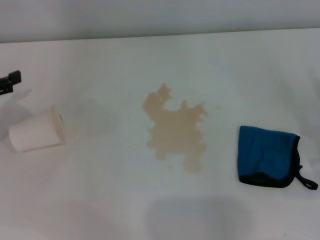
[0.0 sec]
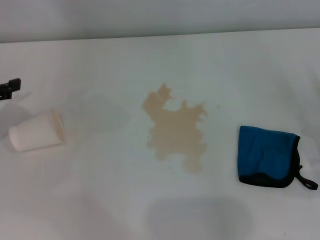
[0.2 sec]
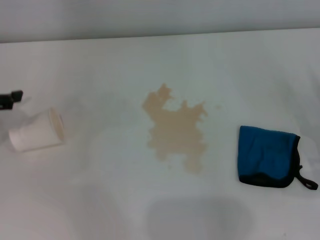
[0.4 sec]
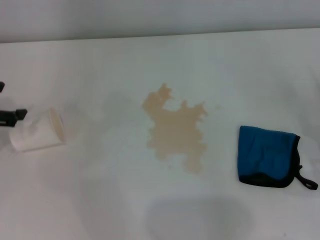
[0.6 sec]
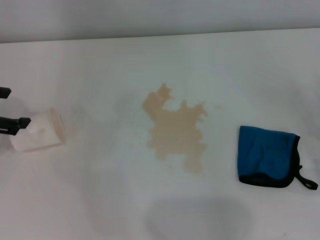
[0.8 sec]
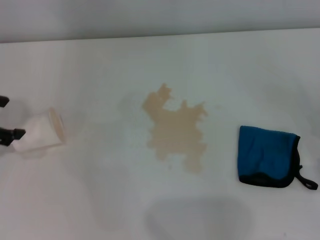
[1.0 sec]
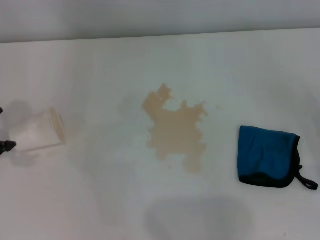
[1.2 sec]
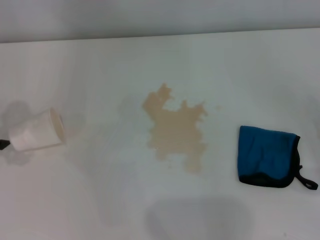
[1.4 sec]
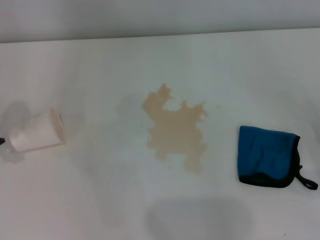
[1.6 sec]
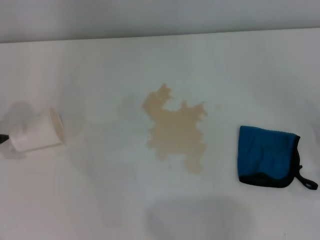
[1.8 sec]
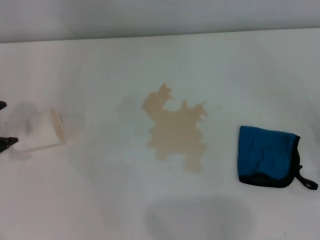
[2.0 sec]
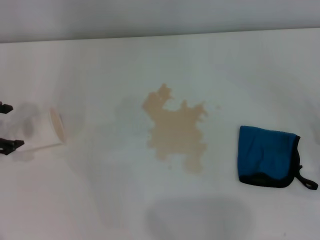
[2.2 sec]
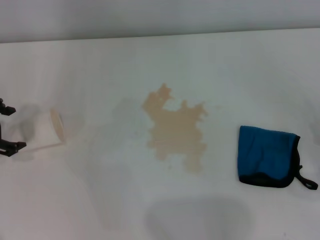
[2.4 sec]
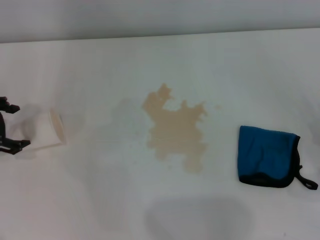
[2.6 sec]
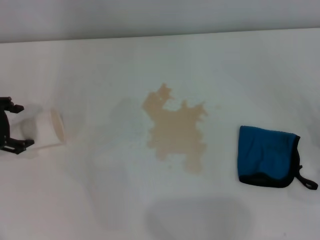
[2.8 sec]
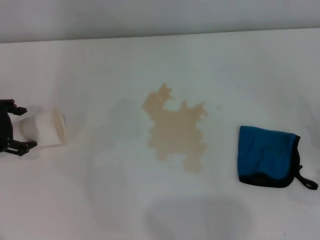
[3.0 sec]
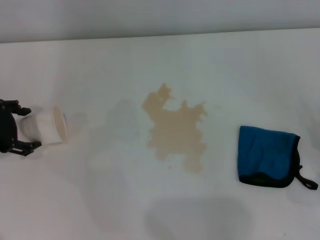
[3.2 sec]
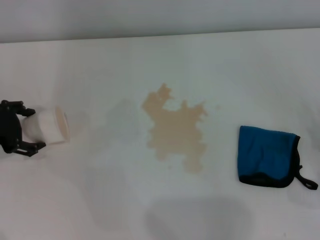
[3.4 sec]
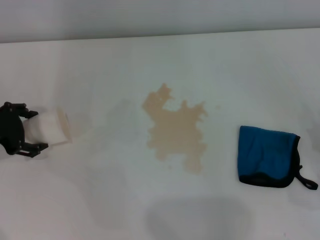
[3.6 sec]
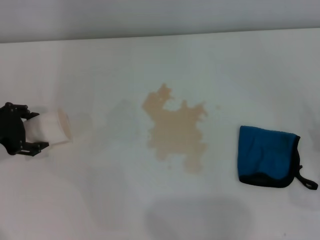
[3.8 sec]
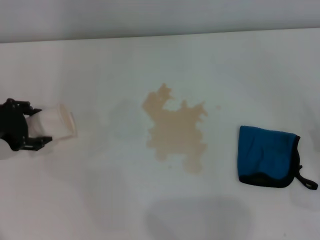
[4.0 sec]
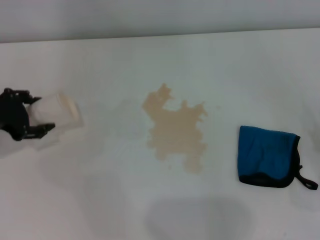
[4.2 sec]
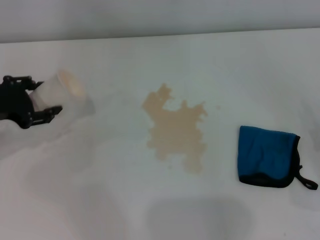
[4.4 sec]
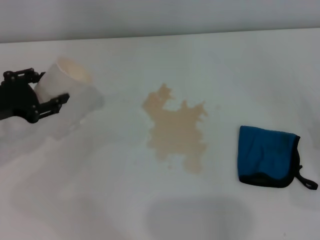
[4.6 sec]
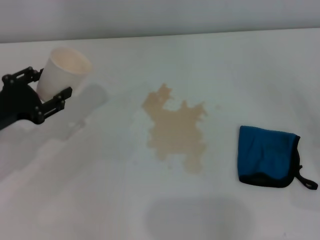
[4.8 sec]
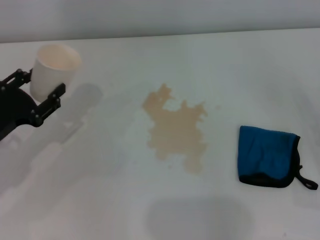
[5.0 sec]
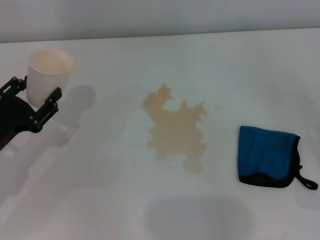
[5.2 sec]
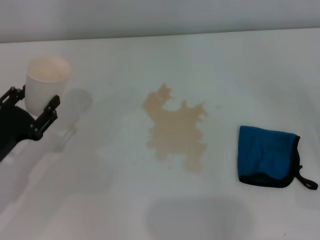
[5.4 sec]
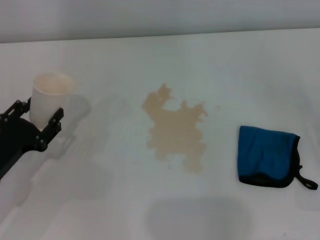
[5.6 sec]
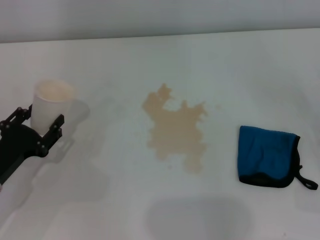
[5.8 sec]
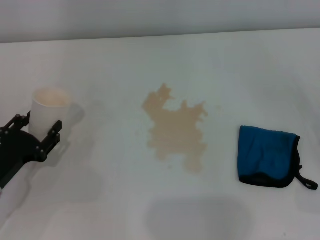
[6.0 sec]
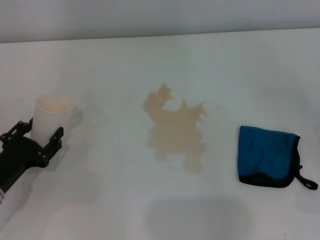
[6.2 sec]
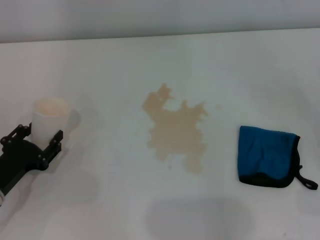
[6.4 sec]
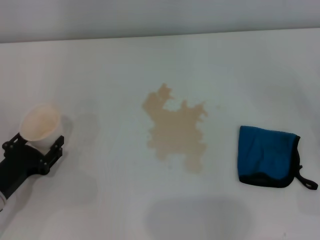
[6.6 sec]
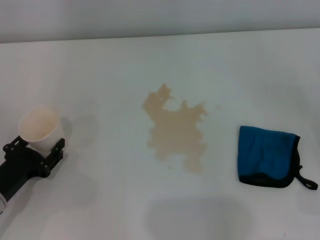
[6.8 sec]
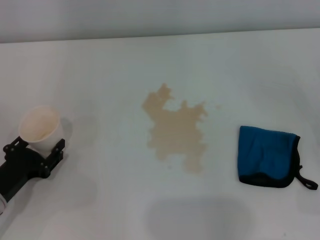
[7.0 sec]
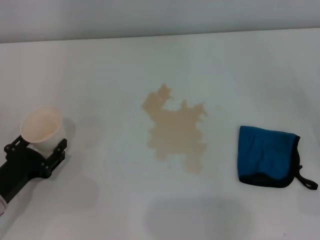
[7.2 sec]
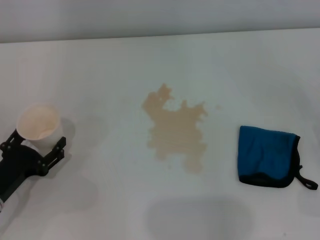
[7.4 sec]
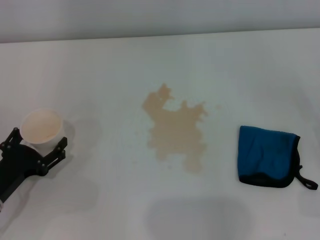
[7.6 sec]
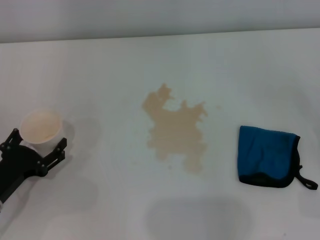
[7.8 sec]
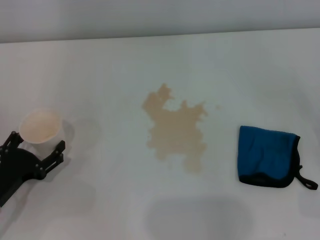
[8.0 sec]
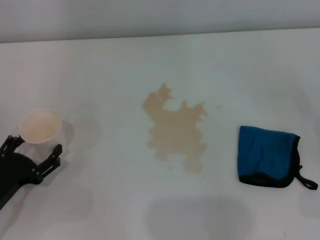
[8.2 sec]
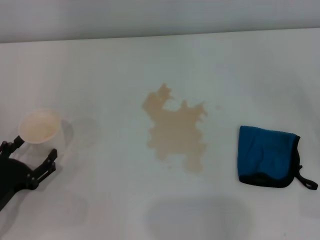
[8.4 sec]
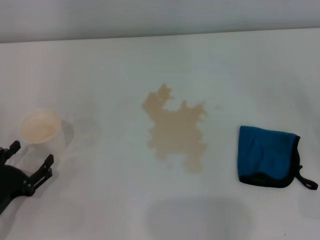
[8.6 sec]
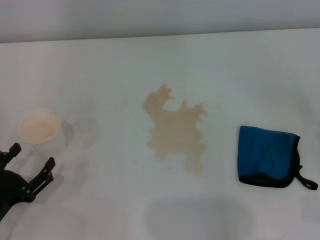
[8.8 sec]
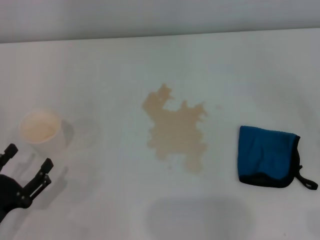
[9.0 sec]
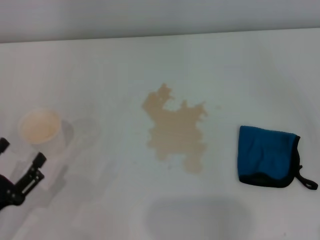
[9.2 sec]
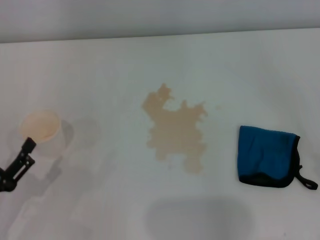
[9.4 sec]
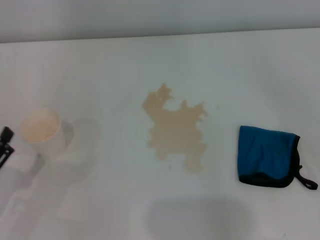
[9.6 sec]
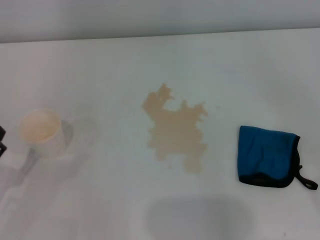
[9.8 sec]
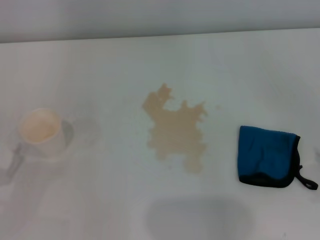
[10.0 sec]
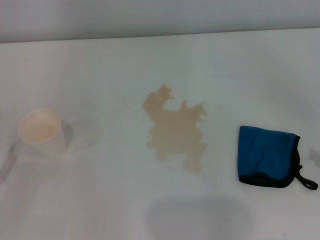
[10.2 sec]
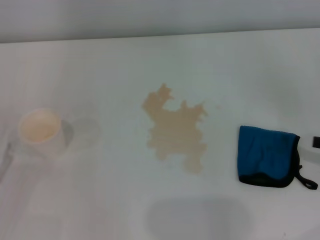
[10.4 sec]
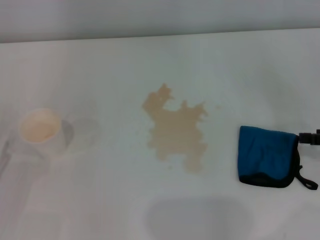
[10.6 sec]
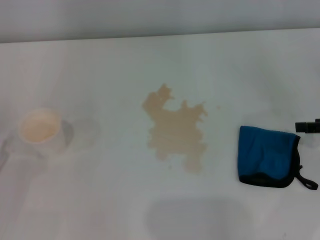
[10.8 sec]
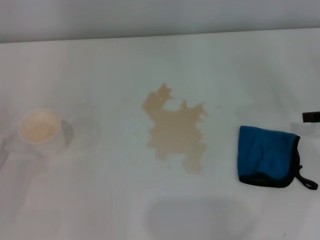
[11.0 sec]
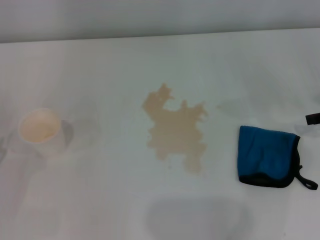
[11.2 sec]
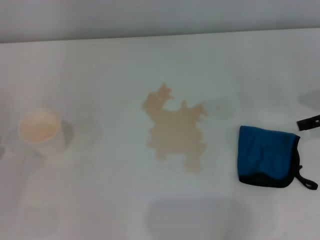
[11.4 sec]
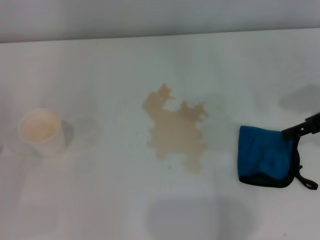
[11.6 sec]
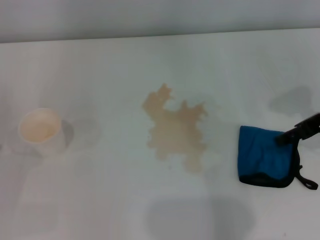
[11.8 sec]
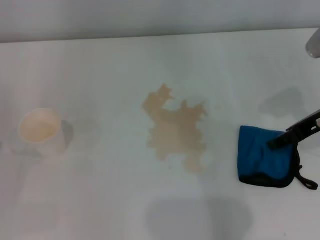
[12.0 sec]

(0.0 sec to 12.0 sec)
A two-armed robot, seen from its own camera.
Step, 0.0 sec - 3.8 sec: Grasp the paper cup with the left gripper.
Step, 4.0 sec - 8.2 sec: Stand the paper cup upright with the left gripper.
1.6 sec - 3.0 sec: The left gripper is displaced downward by some 5 cm.
3.0 sec - 4.4 sec: The left gripper closes up.
4.4 sec - 6.0 sec: The left gripper travels downward and backward by about 15 cm.
6.0 sec - 7.6 sec: The left gripper opens up.
7.6 sec - 9.0 sec: The left gripper travels backward by roughly 5 cm.
10.4 sec - 12.0 sec: The right gripper goes approximately 20 cm to the left, forward and upward.

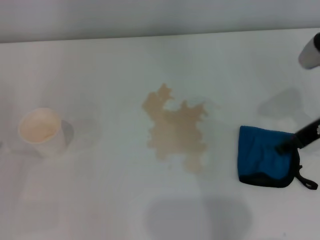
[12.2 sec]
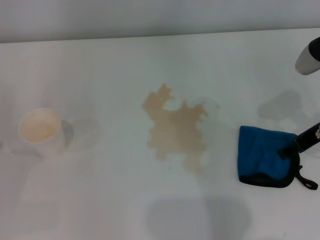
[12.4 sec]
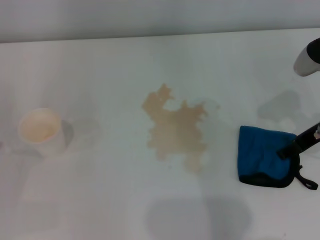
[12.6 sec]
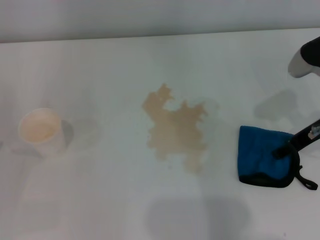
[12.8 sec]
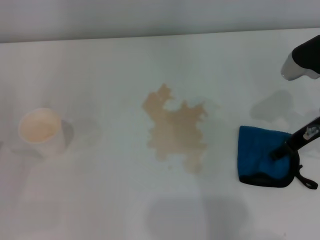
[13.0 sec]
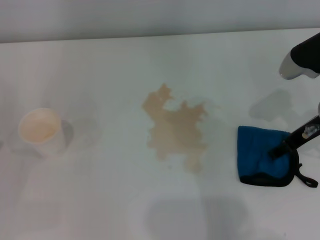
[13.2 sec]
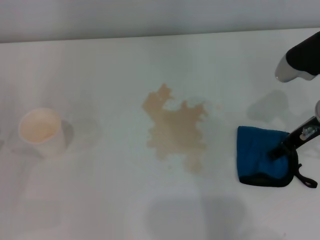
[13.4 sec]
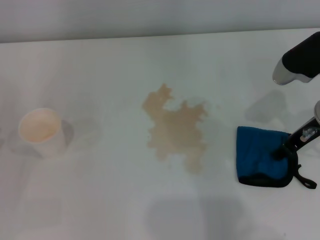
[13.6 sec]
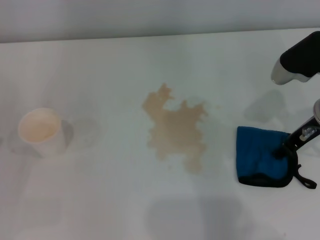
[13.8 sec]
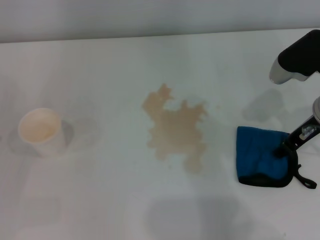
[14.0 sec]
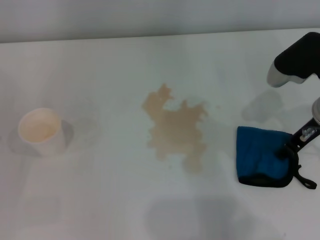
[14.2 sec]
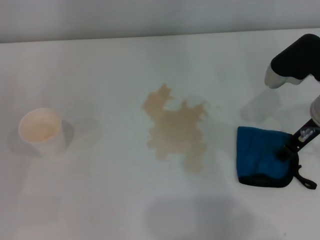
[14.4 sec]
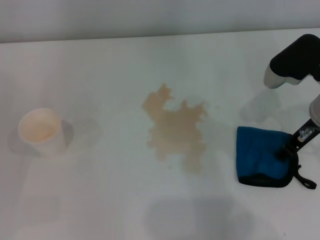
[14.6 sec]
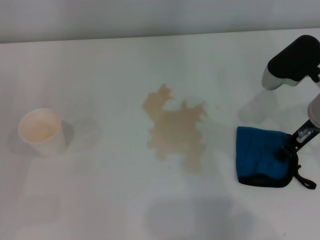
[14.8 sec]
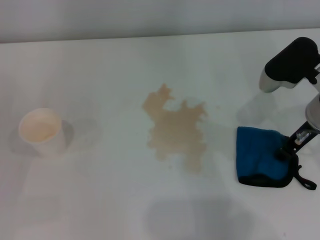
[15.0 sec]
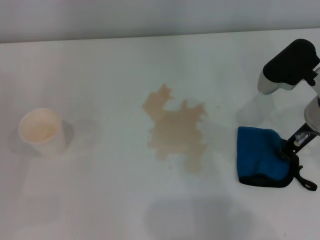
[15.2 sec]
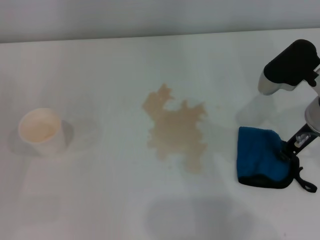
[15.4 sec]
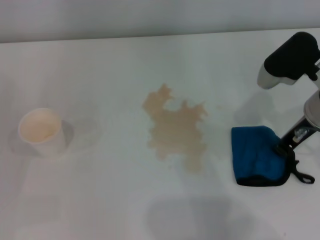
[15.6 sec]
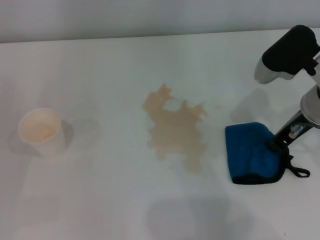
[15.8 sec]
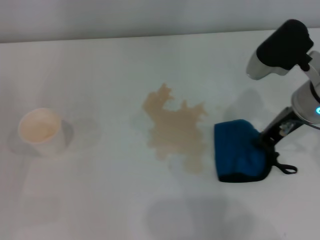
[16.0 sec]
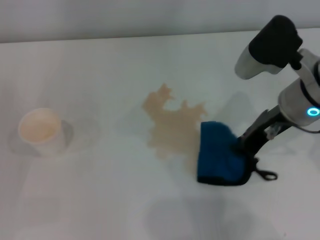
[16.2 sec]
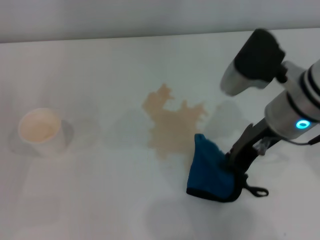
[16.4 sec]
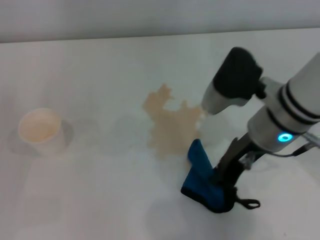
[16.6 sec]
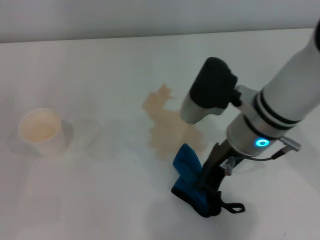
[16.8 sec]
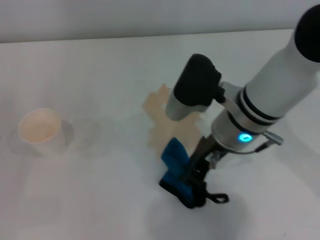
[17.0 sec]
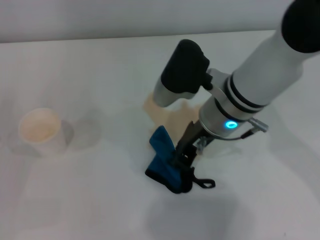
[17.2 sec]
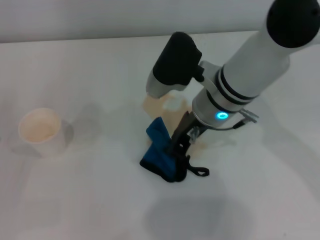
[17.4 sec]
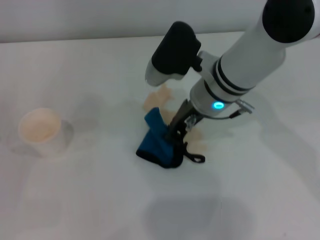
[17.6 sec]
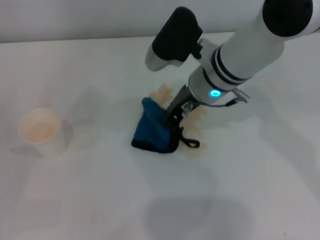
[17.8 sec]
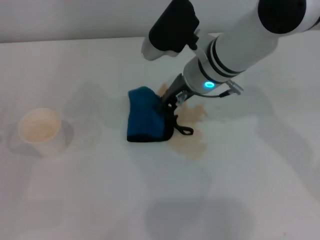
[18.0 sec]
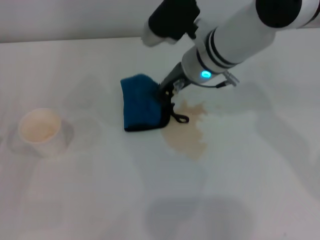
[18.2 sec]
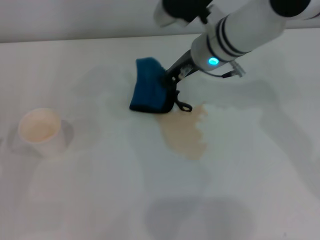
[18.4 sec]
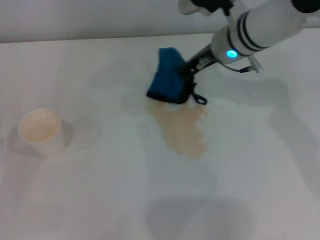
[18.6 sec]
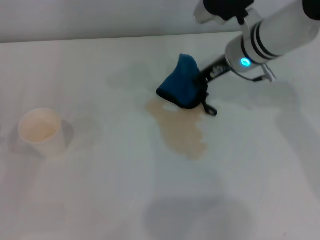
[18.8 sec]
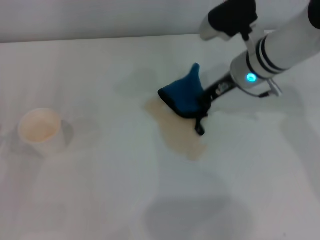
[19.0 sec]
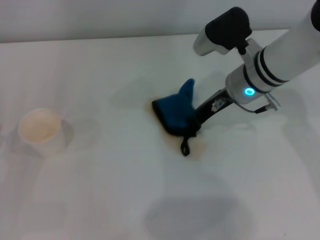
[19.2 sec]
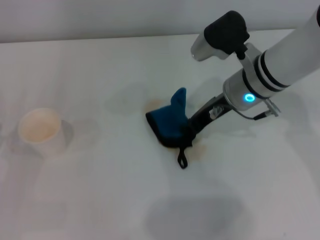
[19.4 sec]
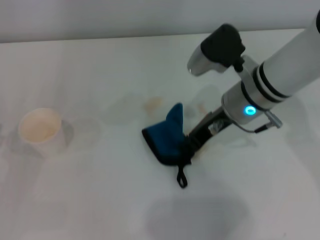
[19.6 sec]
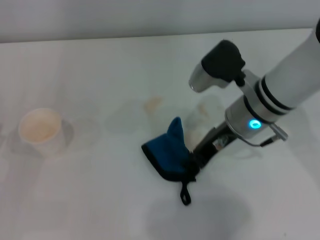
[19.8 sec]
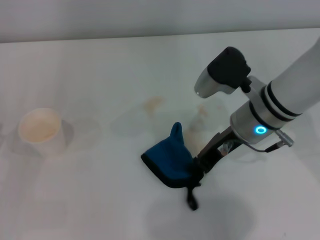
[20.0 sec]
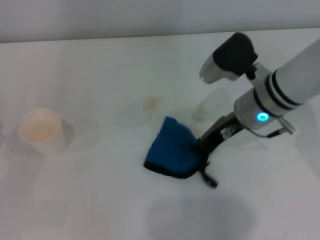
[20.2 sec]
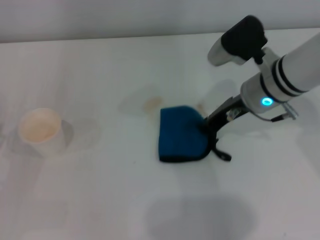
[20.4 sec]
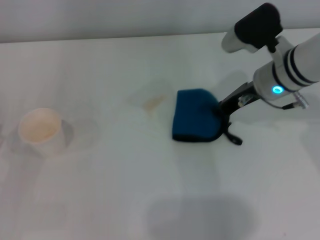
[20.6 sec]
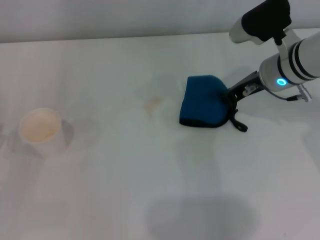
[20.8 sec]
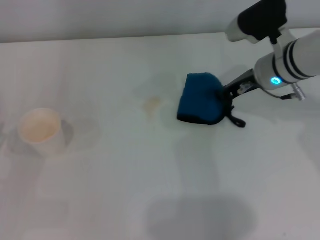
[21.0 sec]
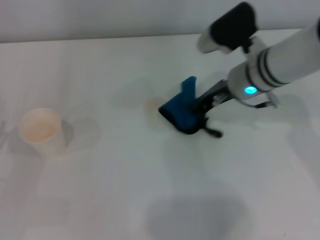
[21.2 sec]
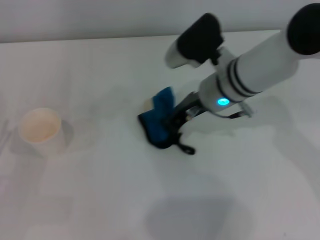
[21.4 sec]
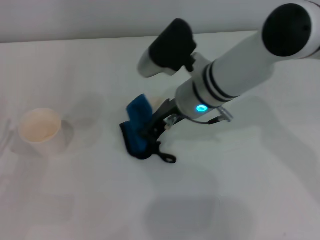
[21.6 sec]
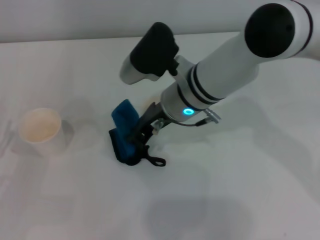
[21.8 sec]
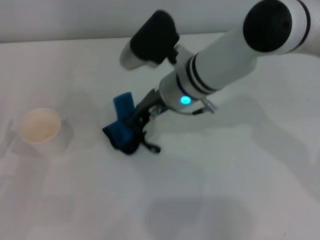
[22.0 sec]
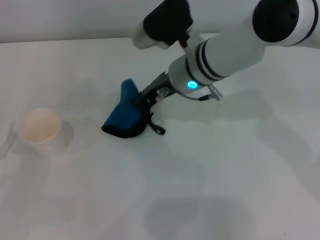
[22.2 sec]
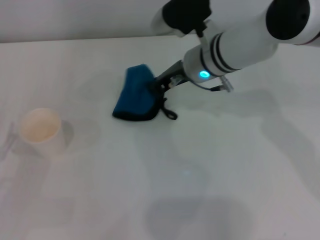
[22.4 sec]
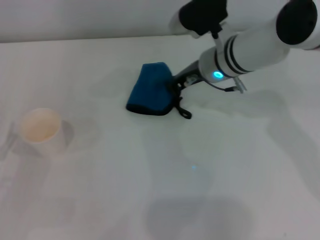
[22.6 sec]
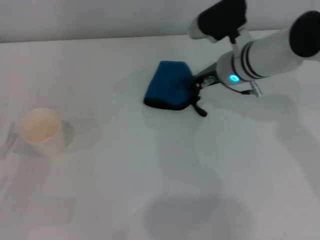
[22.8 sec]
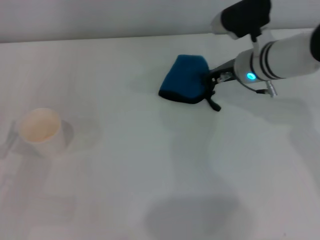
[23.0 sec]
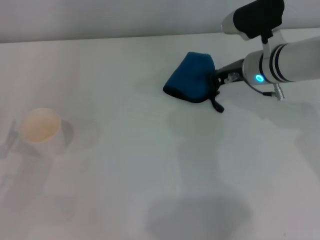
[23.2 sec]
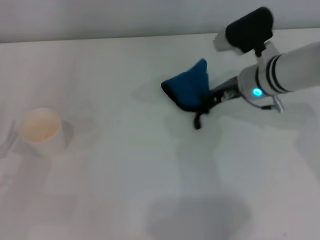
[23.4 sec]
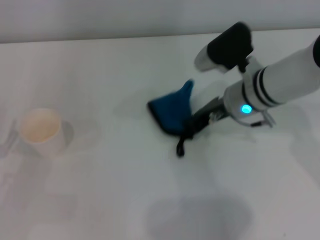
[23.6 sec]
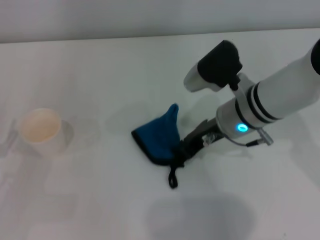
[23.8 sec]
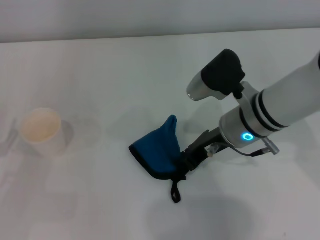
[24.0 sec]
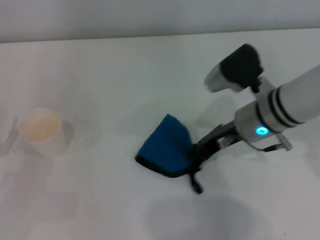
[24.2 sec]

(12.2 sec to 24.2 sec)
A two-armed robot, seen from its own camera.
Step, 12.2 sec - 15.2 sec: Grasp the rag with the right gripper.
12.2 sec - 13.8 sec: The right gripper closes its fingers.
13.8 sec - 15.2 sec: There are only small adjustments of the grippers.
15.2 sec - 16.6 sec: The right gripper shifts some 10 cm to the left.
16.6 sec - 18.2 sec: The right gripper shifts about 10 cm forward and to the left.
18.2 sec - 19.8 sec: The right gripper moves backward and to the right, roughly 10 cm.
22.6 sec - 24.2 sec: The right gripper travels backward by about 10 cm.
